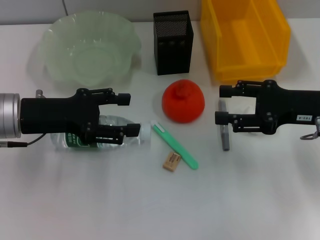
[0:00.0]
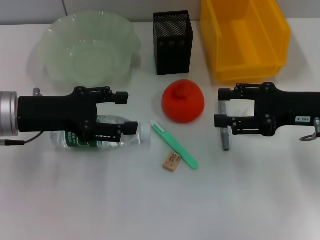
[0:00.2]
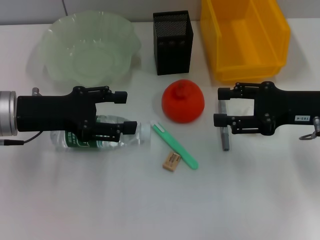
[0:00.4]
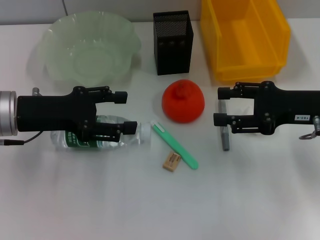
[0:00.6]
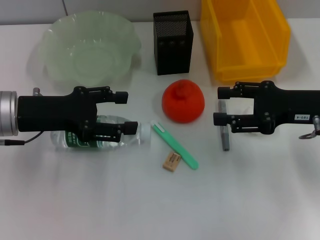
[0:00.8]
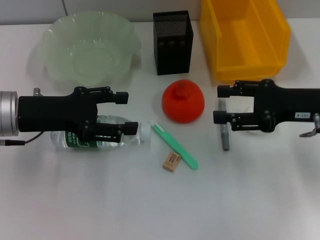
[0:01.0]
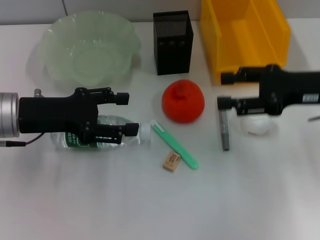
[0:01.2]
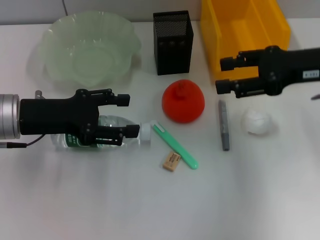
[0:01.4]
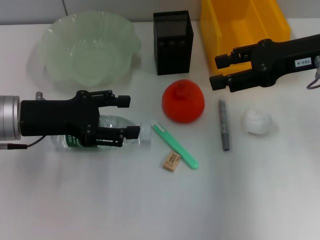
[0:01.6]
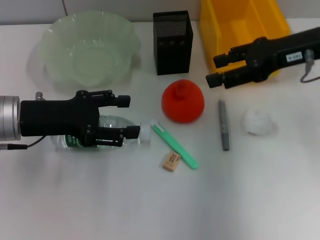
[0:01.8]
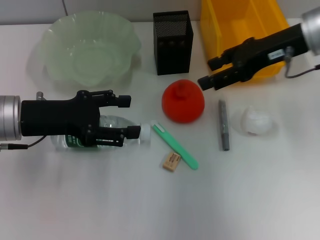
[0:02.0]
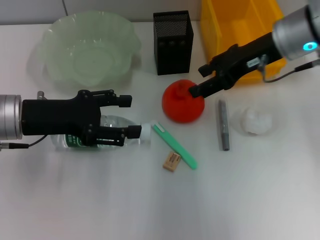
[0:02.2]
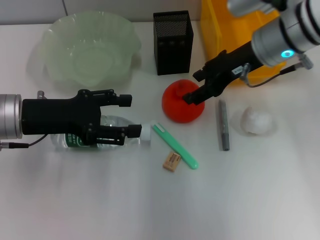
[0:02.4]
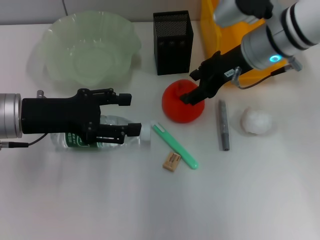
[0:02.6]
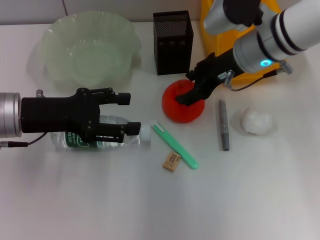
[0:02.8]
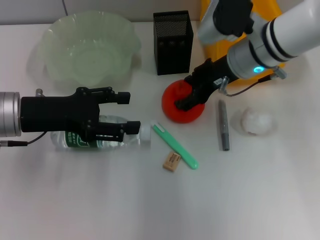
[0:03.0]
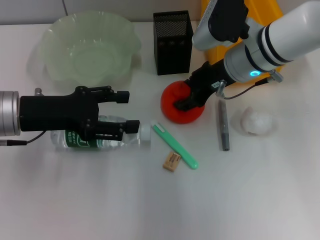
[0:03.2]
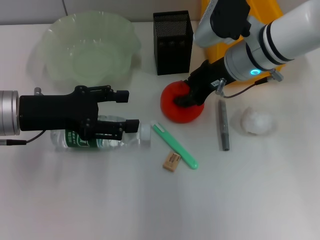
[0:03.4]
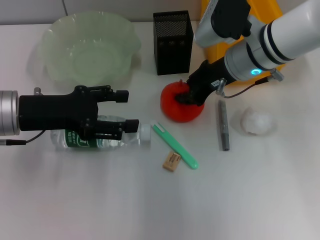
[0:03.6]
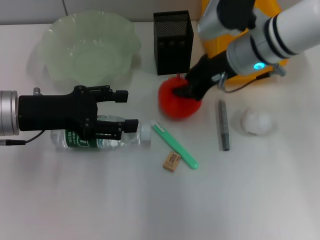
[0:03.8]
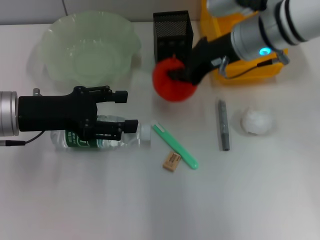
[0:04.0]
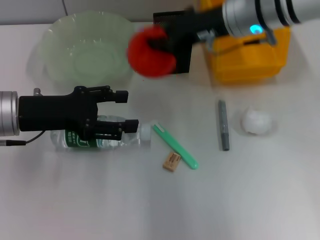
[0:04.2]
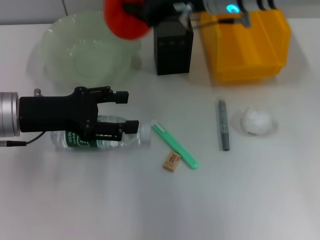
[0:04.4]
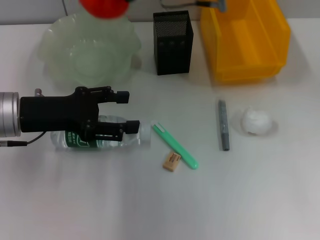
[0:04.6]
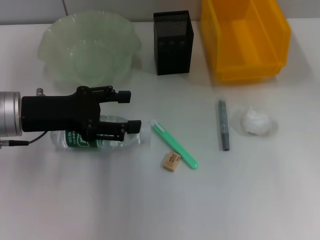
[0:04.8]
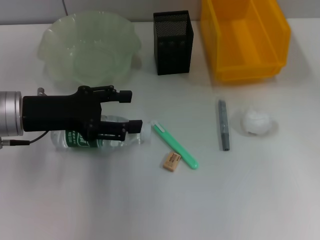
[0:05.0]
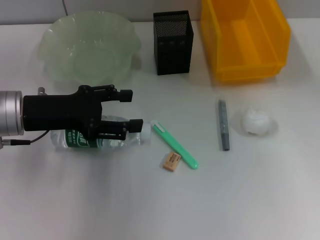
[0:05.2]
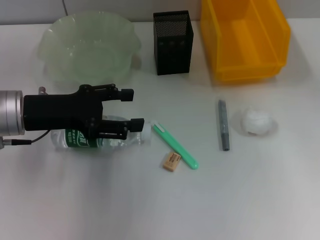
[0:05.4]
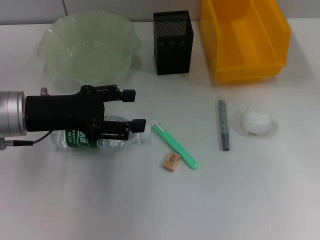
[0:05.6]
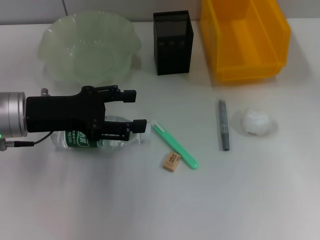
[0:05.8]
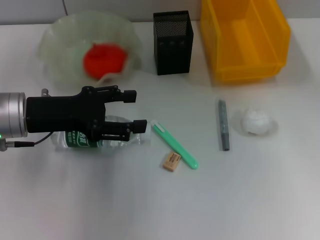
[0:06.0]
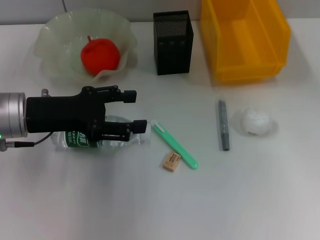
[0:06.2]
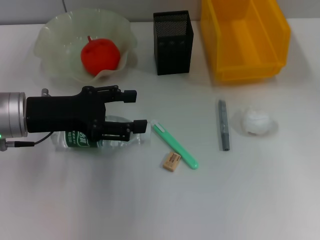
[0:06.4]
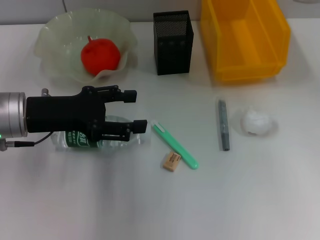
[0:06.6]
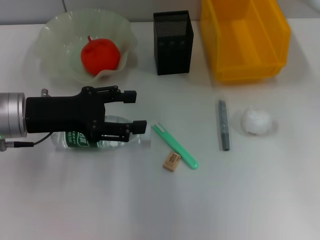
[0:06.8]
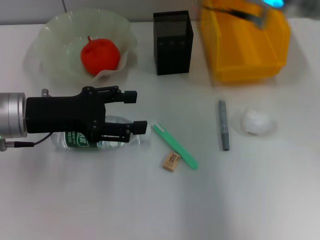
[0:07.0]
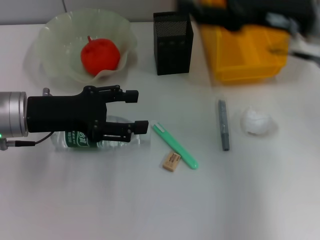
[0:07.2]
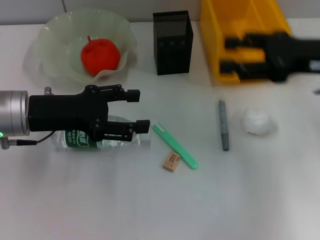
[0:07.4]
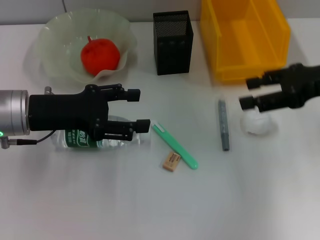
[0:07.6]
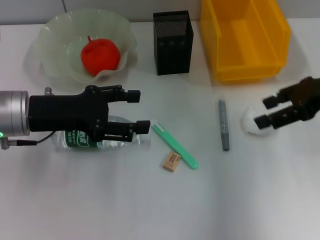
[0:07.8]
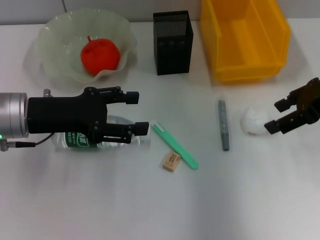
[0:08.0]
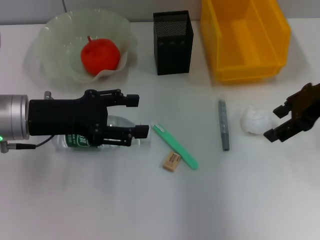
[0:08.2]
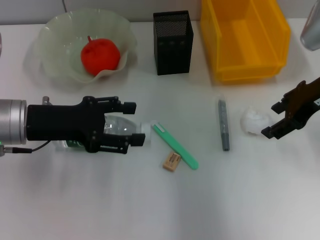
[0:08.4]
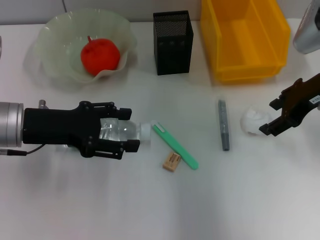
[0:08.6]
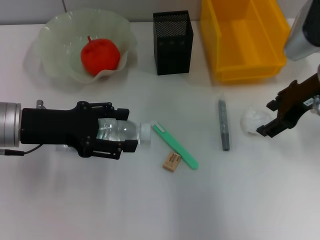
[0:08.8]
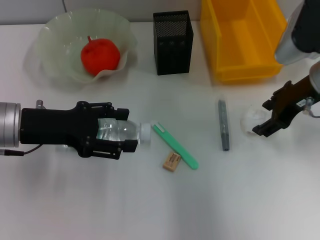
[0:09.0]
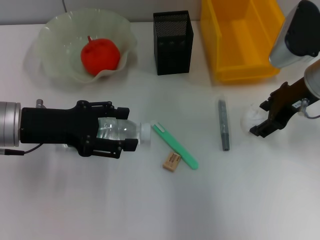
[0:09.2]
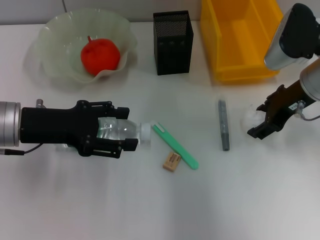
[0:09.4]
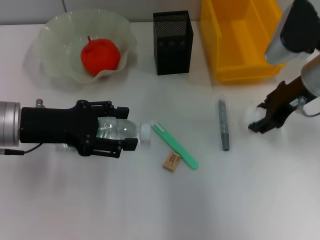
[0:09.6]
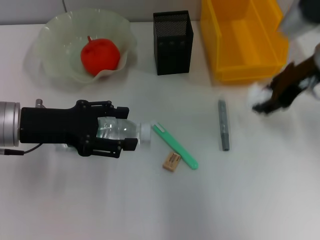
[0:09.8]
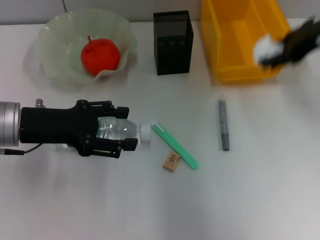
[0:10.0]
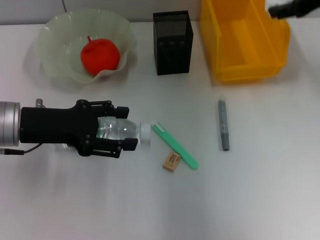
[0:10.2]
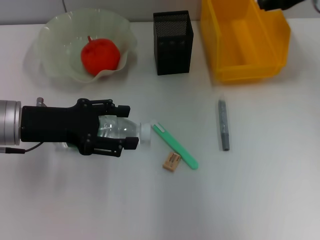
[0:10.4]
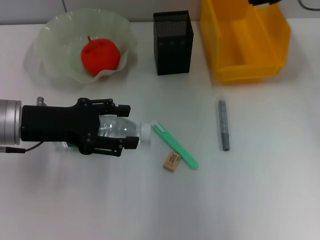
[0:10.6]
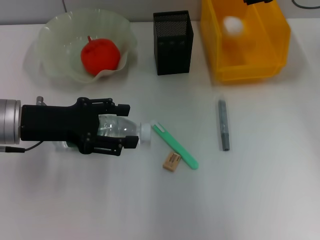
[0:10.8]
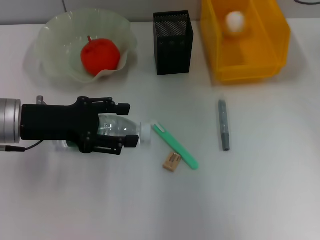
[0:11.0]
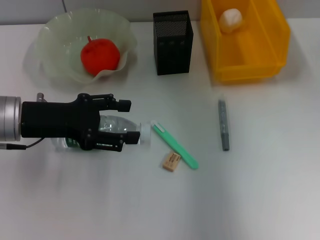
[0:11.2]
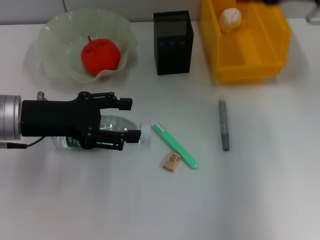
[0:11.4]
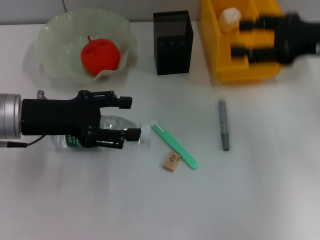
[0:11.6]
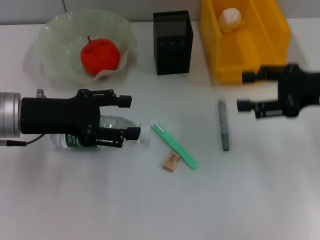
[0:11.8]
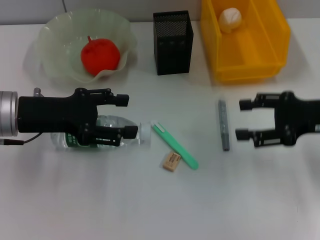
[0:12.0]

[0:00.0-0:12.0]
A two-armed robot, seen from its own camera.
Step, 0.0 to 3.4 s: Grab the orange with the right hand.
Step, 3.6 to 6.0 s: Place the orange into the fruit bowl with the right hand.
Step, 6.4 to 9.4 s: Grab the paper ball with the right hand.
Step, 9.6 to 11.0 s: Place the paper ball into the trash can with the right hand.
0.0 to 1.6 s: The right gripper travels upward and forward by approximately 10 cm.
1.6 to 3.0 s: The right gripper goes about 15 cm to the left and downward.
3.0 to 4.4 s: The right gripper travels upward by about 5 cm, and closes its fingers.
4.4 to 6.0 s: The right gripper is displaced to the left by about 10 cm, and opens its fingers.
6.0 to 7.6 s: The right gripper heads to the right and backward, covering approximately 30 cm, and opens.
7.6 to 9.0 s: The right gripper travels to the left by approximately 5 cm.
9.0 to 10.4 s: The right gripper is displaced upward and forward by some 10 cm.
10.4 to 12.0 s: The right gripper travels downward and backward by about 15 cm.

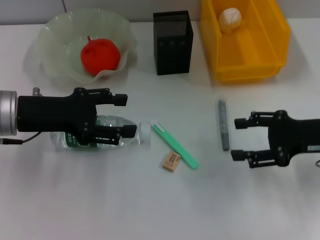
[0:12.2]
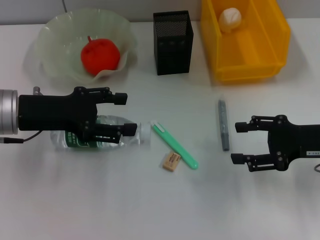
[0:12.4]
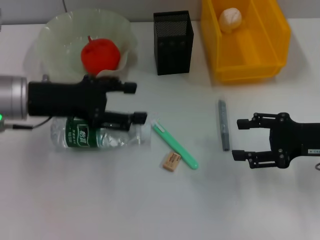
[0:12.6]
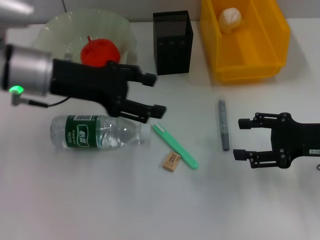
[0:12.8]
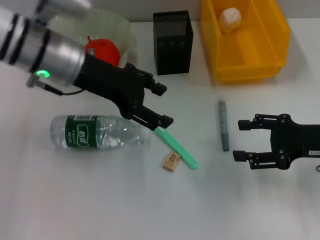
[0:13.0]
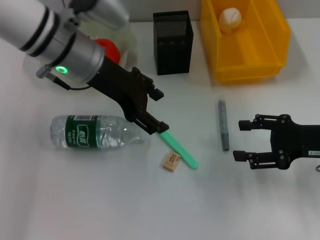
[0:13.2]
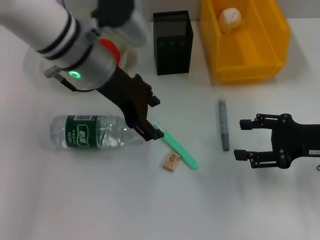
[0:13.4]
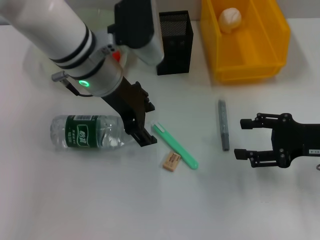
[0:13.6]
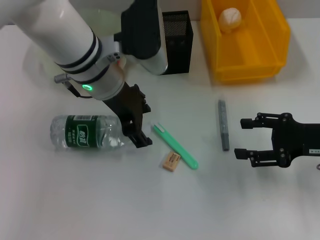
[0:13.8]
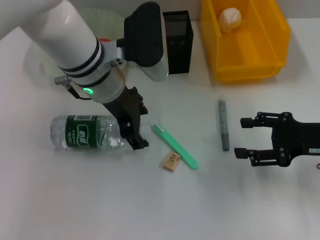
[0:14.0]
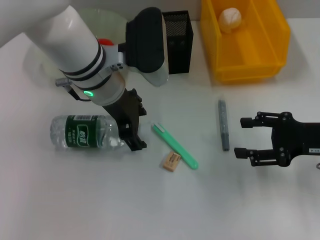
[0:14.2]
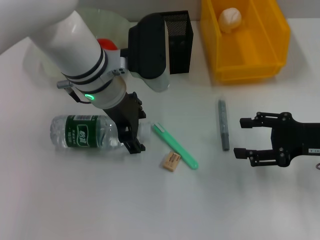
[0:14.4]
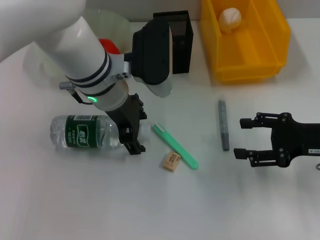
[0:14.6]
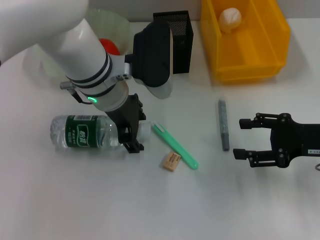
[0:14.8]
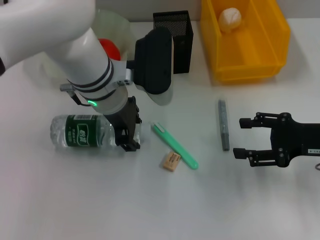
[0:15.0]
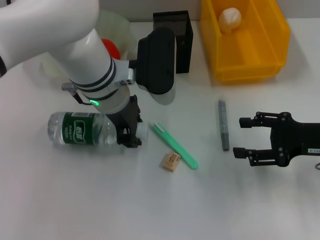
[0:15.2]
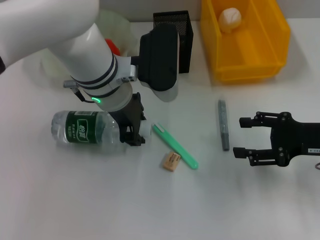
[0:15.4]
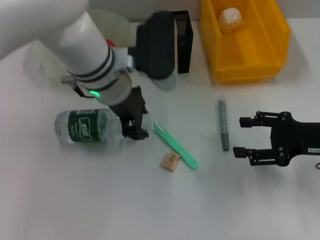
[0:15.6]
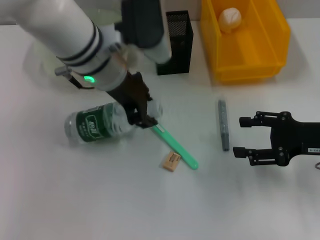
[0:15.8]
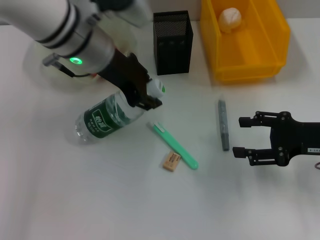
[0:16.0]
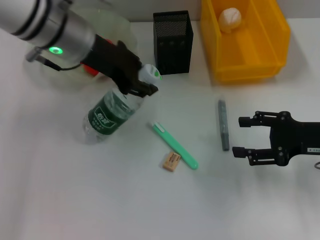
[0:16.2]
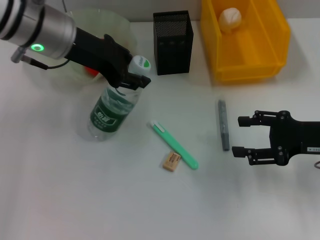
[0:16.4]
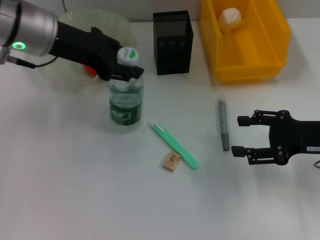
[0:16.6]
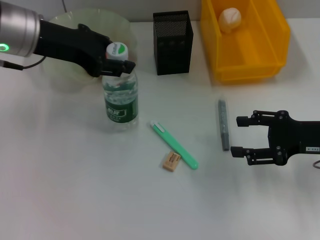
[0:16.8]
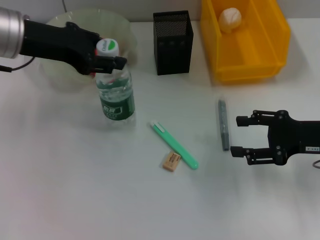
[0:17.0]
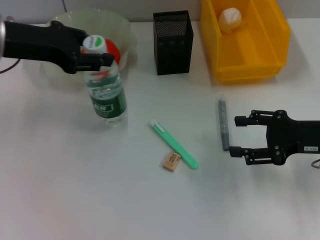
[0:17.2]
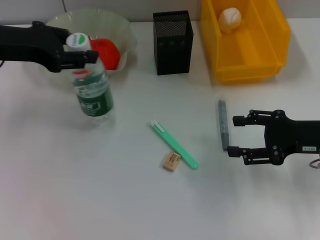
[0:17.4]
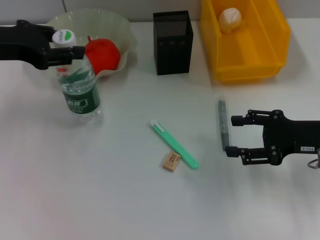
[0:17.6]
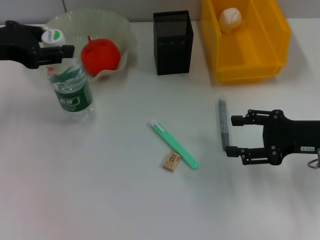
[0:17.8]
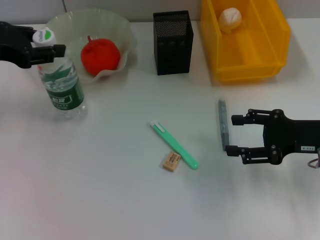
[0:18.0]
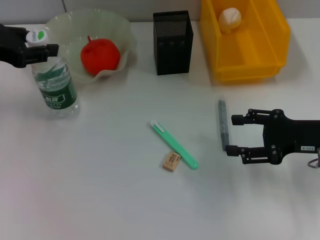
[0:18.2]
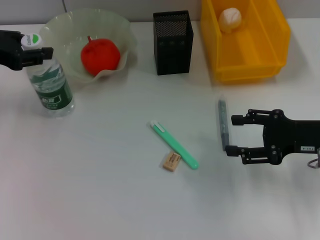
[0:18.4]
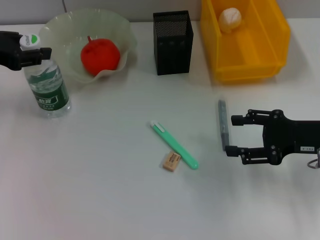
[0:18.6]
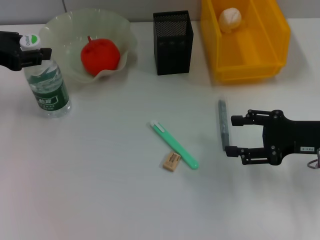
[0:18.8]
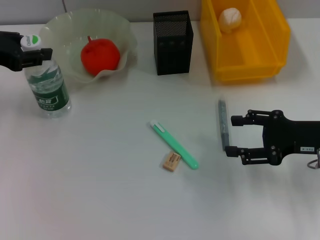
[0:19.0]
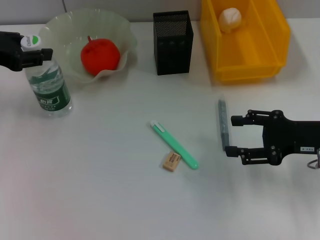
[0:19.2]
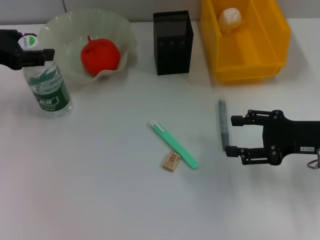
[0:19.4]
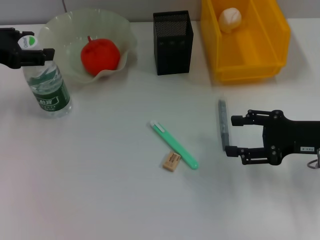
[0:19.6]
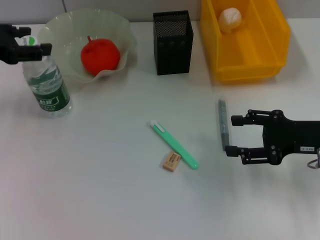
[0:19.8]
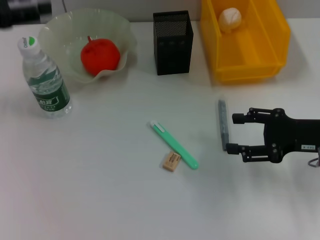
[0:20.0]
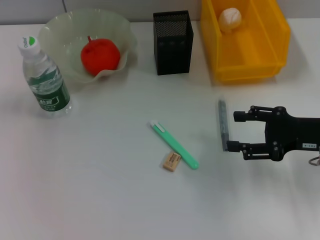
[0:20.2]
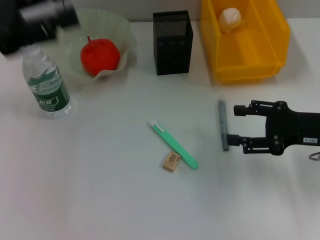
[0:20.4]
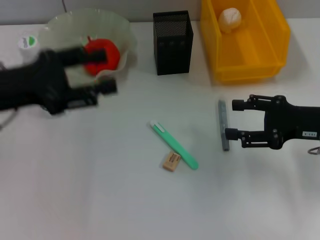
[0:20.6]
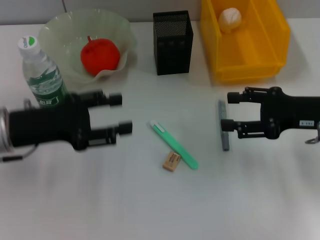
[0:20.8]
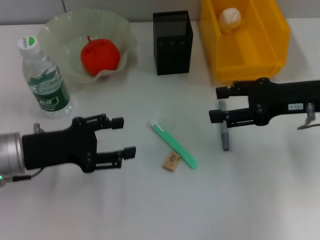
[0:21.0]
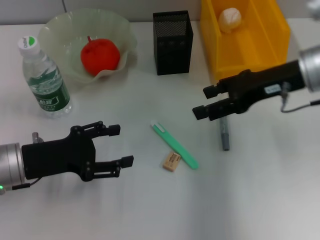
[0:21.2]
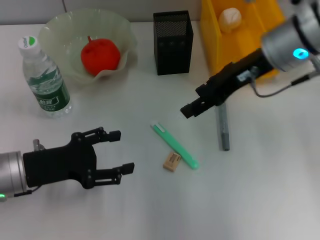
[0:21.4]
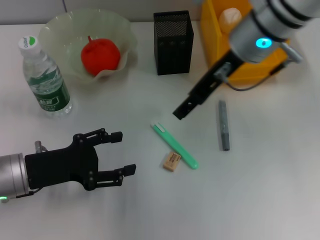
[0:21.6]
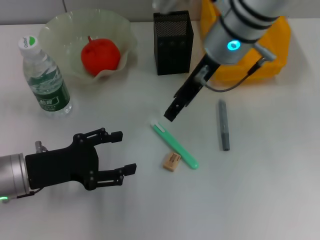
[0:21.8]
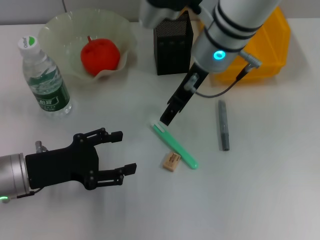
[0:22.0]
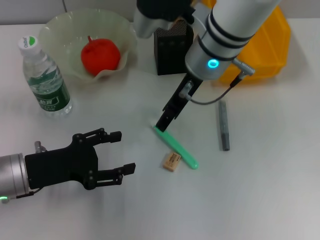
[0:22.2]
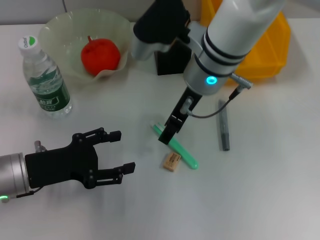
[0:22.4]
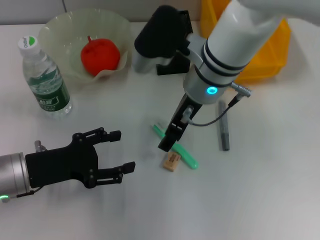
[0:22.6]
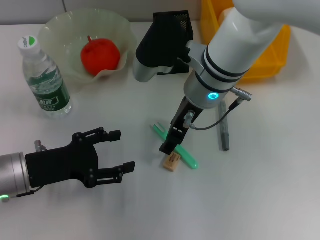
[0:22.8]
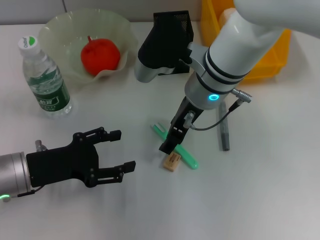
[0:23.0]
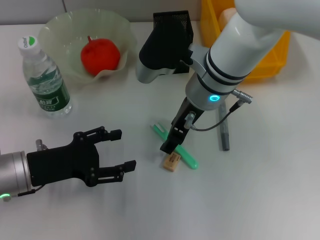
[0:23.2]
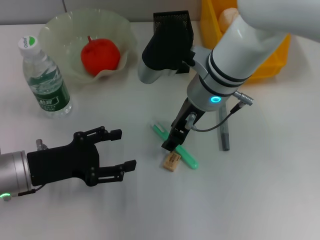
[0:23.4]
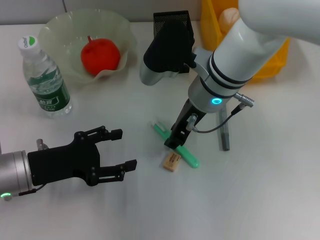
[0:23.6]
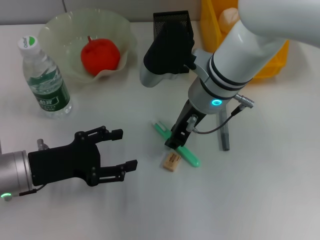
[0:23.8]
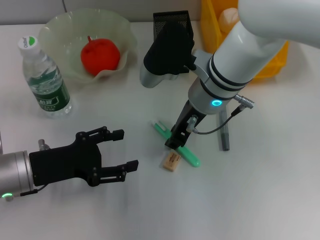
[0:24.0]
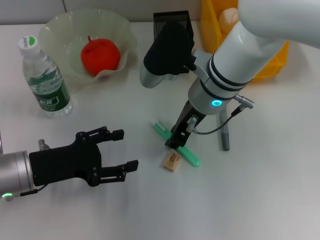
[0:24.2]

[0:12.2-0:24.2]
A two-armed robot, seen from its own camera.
Step, 12.2 to 15.0 s: Grab the water bottle with the left hand.
Step, 15.2 to 19.2 s: Place the water bottle on the table with the left hand.
12.2 to 13.8 s: The left gripper is displaced to the right and forward by some 15 cm.
13.8 to 15.2 s: The left gripper closes its fingers.
15.2 to 16.6 s: The left gripper moves to the left and upward, some 15 cm, and closes its fingers.
16.6 to 18.2 s: The left gripper is displaced to the left by roughly 10 cm.
18.2 to 19.8 s: The left gripper opens up.
19.8 to 21.2 s: The right gripper is displaced upward, to the left and forward by approximately 15 cm. The left gripper travels downward, backward and to the right by approximately 15 cm.
21.2 to 22.6 s: The right gripper is displaced to the left by some 15 cm.
22.6 to 24.2 s: The right gripper closes.
